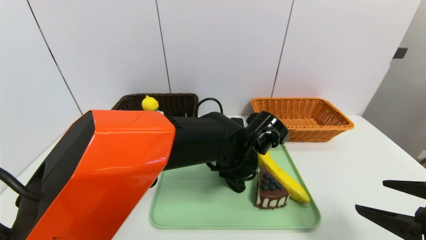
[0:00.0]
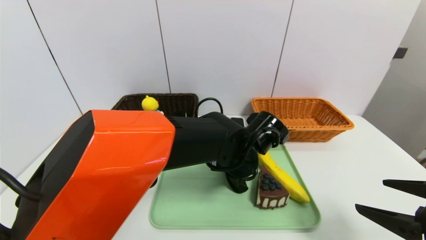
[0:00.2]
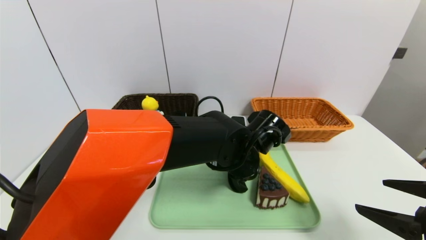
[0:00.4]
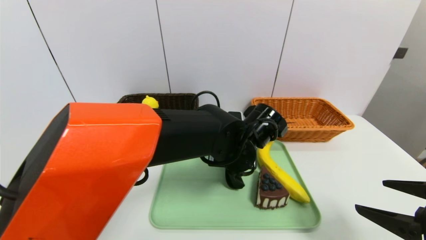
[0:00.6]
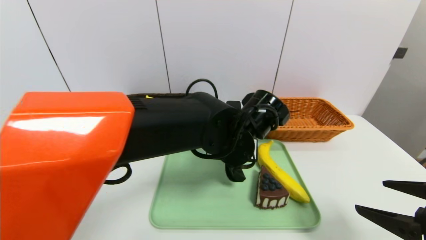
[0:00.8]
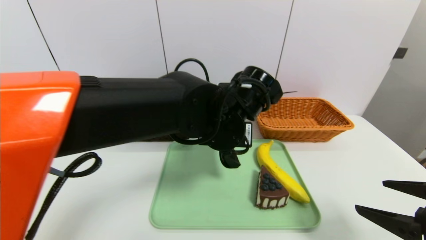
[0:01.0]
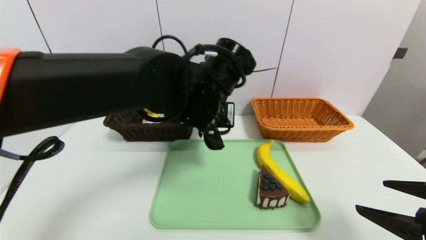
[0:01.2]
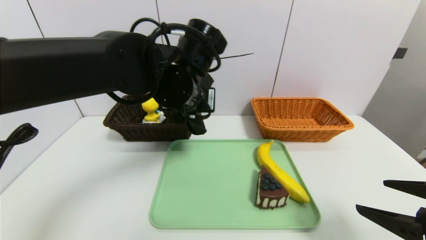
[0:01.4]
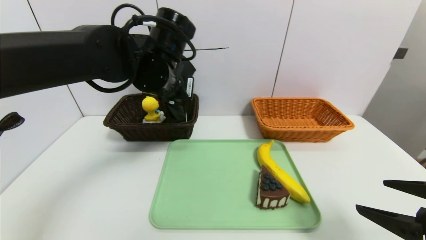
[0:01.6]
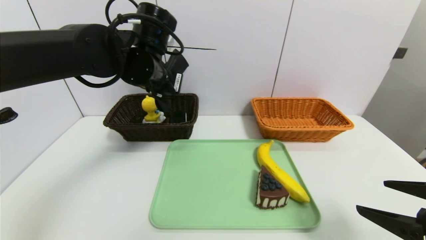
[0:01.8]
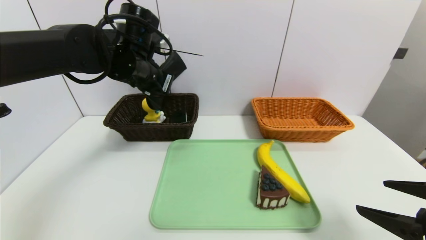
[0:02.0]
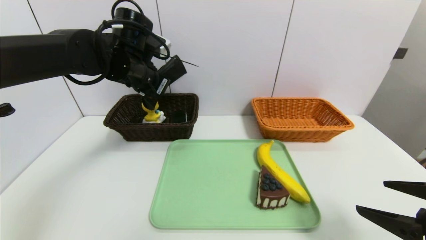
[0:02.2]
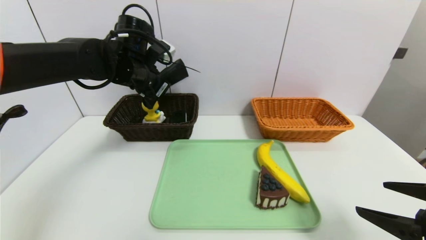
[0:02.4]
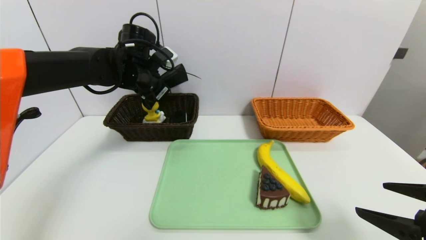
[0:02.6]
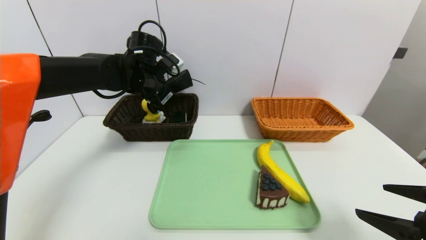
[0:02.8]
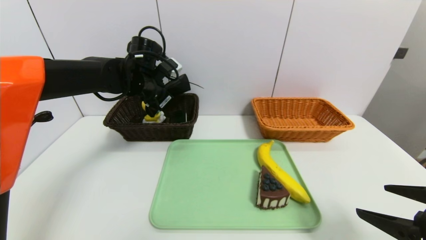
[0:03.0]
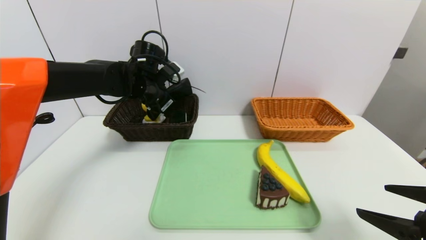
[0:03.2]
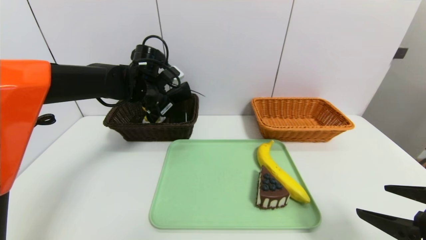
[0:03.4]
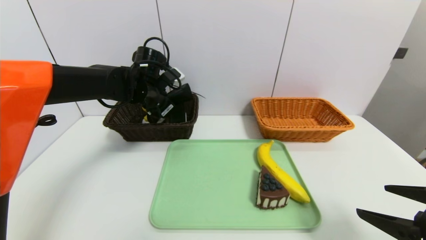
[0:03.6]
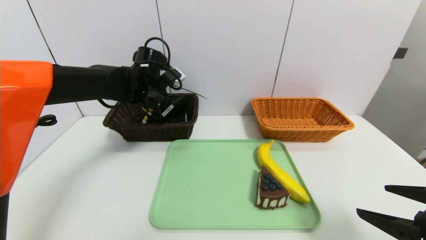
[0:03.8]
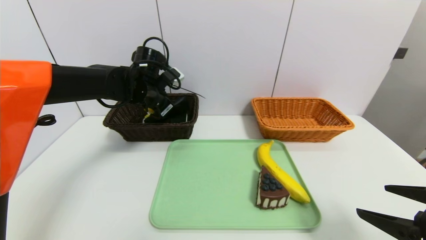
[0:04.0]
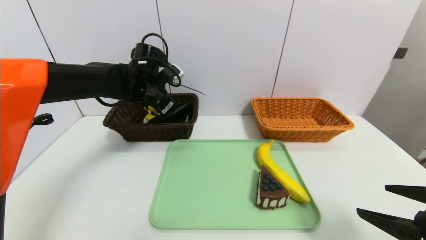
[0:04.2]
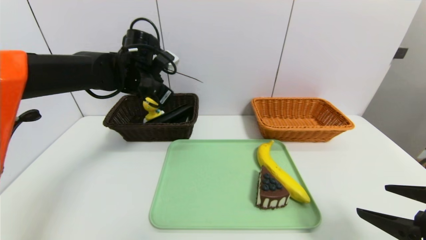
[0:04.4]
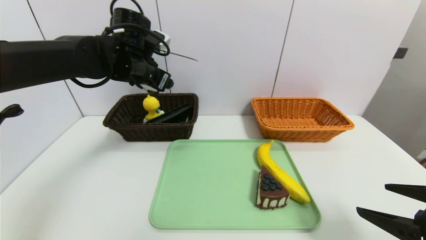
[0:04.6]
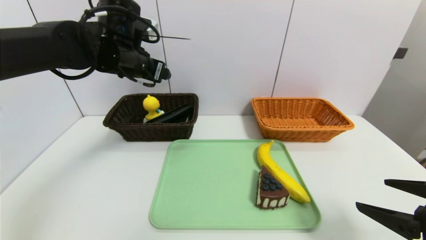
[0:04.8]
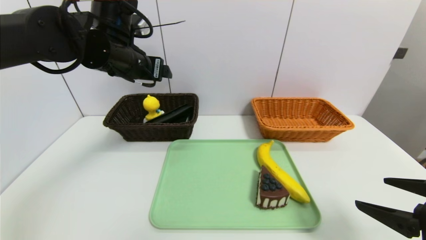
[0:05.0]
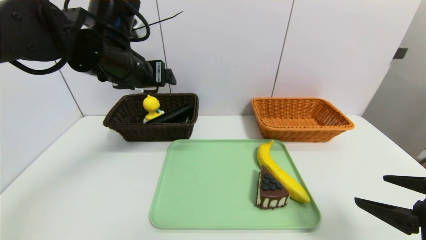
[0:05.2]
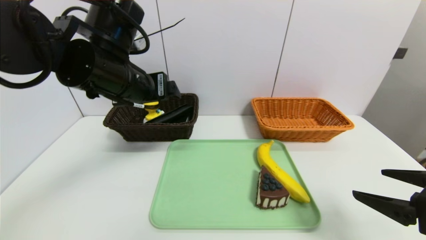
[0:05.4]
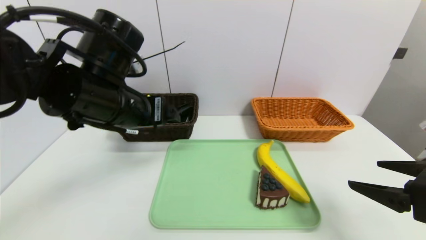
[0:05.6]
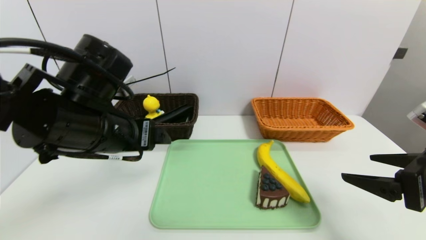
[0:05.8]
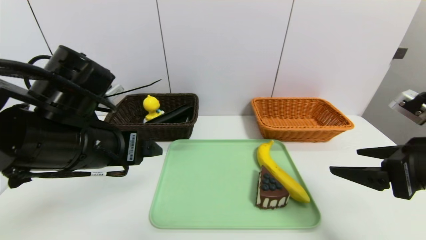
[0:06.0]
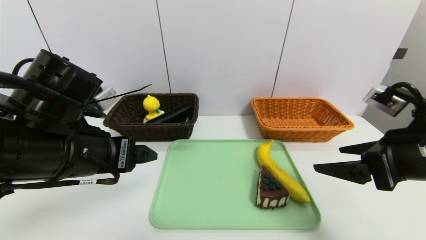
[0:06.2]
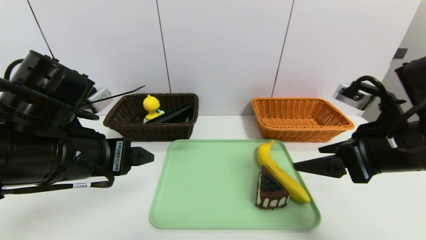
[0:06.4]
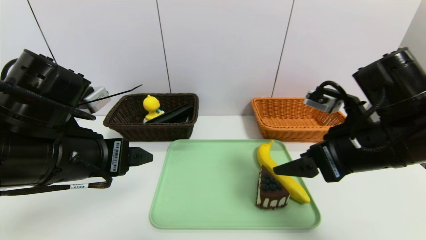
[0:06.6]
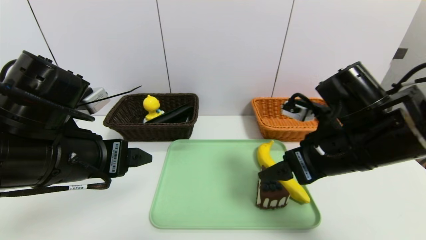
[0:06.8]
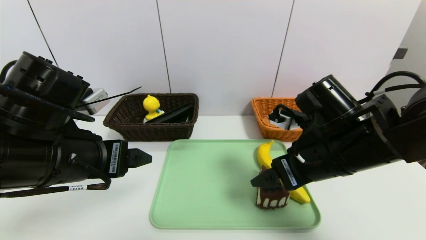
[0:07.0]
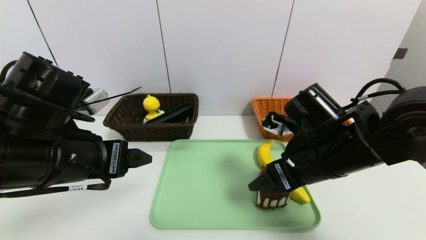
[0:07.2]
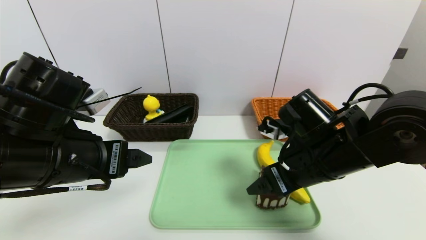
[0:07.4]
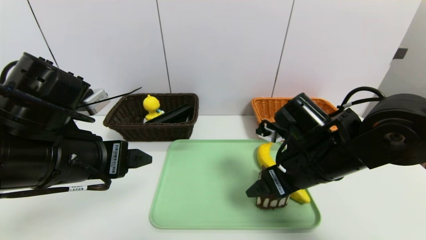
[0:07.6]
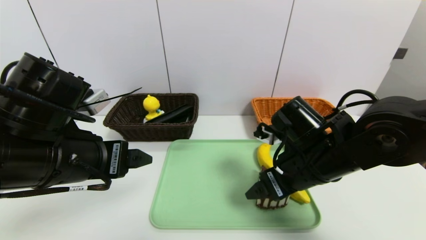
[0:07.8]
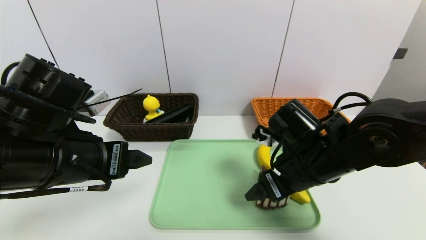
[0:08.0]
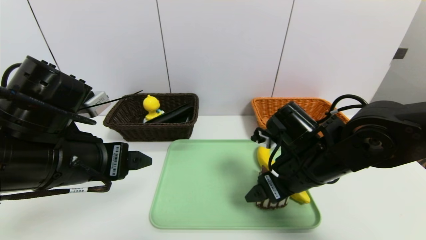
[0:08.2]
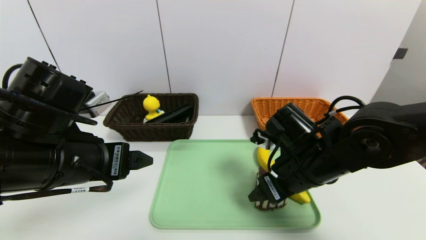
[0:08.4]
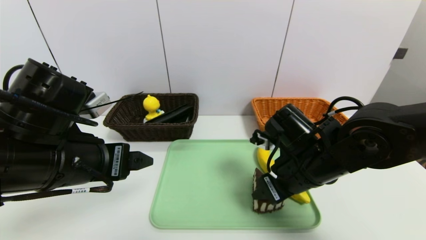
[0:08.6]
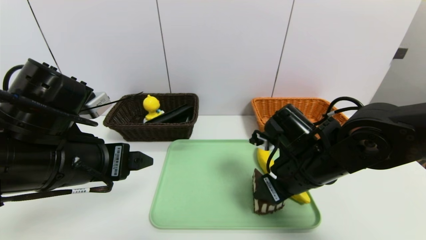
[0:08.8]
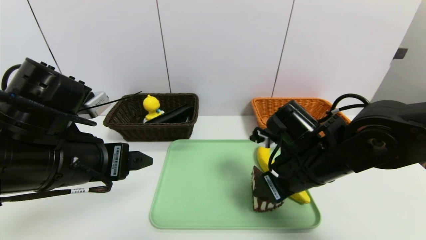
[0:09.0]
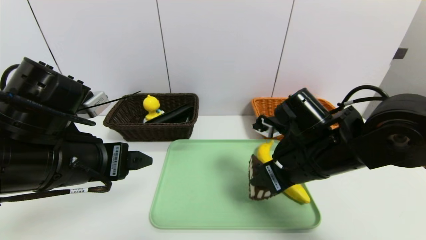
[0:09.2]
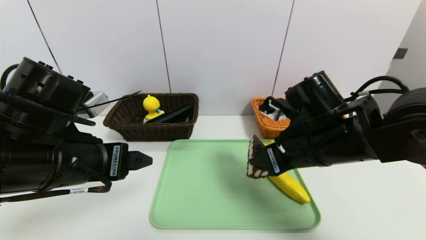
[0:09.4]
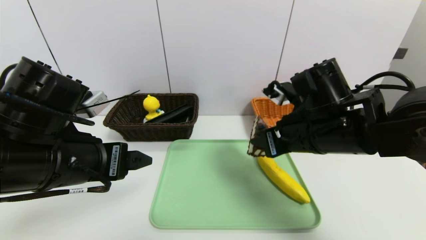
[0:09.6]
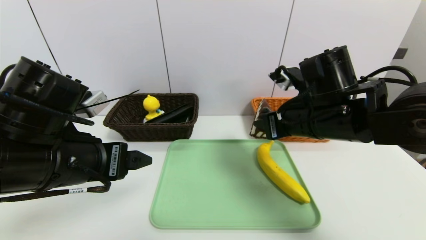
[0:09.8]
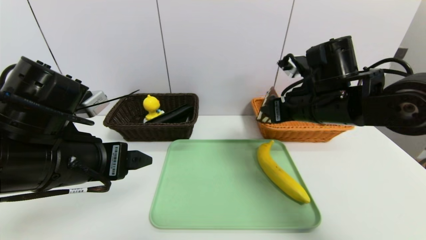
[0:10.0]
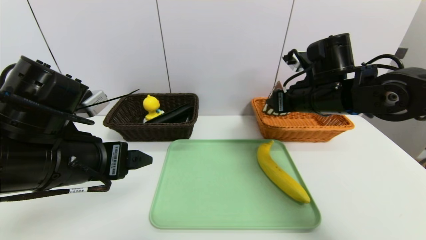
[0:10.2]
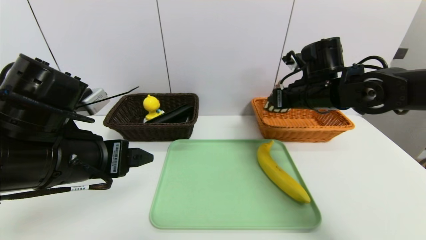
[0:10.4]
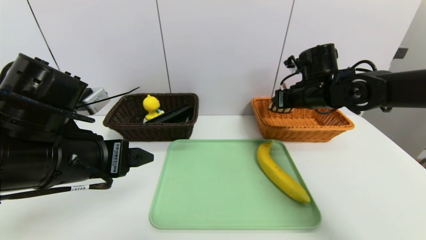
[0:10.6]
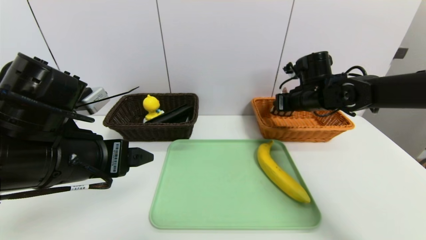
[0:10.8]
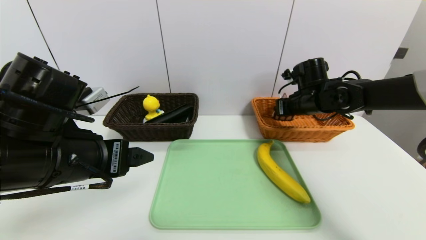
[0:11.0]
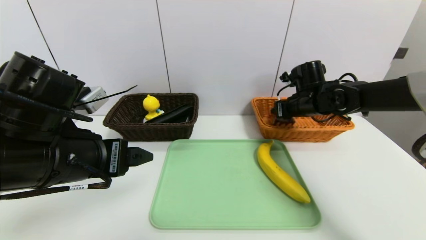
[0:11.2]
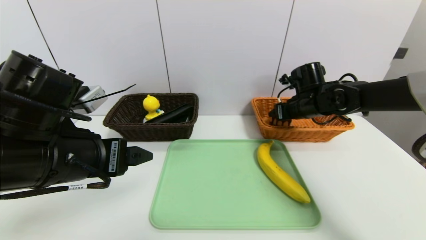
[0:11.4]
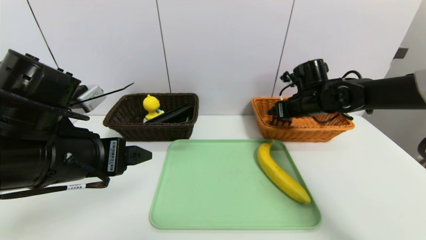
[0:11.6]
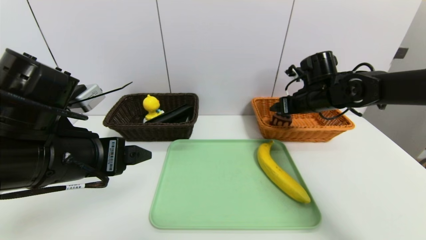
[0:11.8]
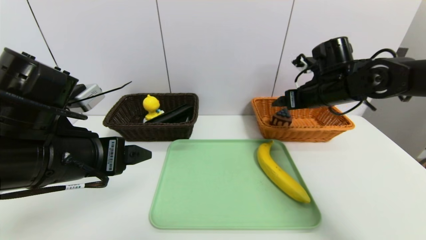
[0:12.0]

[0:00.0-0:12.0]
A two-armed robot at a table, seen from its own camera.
Task of the whole recording: place the food in the right basket with the right gripper, and place the non food items in the left basket with the left gripper.
Step, 0:00.0 to 0:04.2: Grasp the glasses case and put it in the left basket.
Step, 0:04.4 to 0:11.6: Grasp the triangle cake and put it in the right basket.
0:00.0 to 0:01.6: The left gripper travels to the left and upward by roughly 20 cm, and closes up.
0:01.6 to 0:03.0: The left gripper shifts approximately 10 cm forward and to the left.
0:03.0 to 0:04.4: The left gripper opens.
0:04.4 to 0:06.0: The left gripper goes roughly 20 cm backward; the right gripper is displaced forward by approximately 5 cm.
0:06.0 to 0:07.6: The right gripper heads to the left and forward, covering roughly 15 cm.
0:07.6 to 0:09.0: The right gripper closes its fingers.
0:09.0 to 0:10.4: The right gripper goes roughly 15 cm forward, upward and to the right.
0:10.4 to 0:12.0: The right gripper opens its fingers.

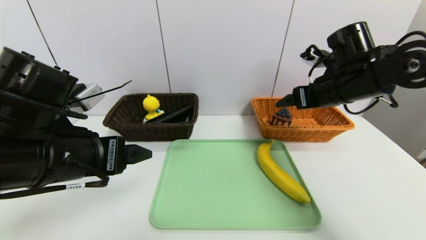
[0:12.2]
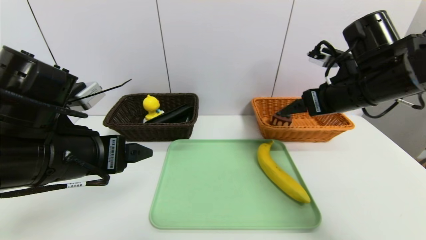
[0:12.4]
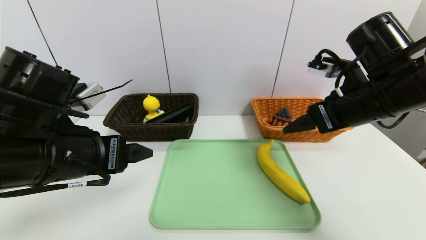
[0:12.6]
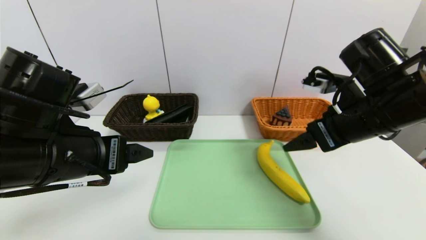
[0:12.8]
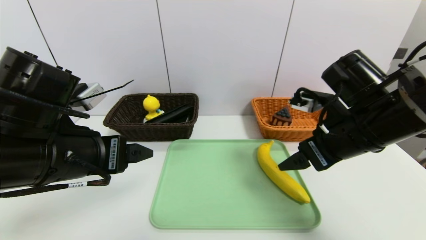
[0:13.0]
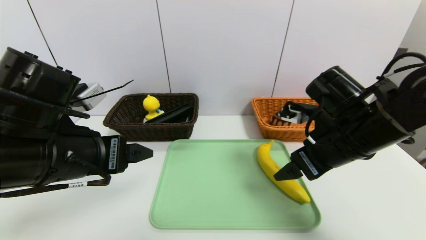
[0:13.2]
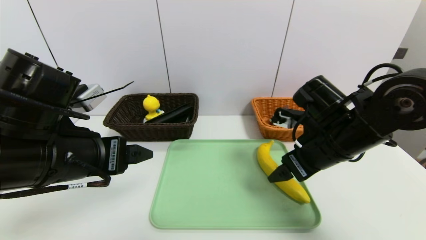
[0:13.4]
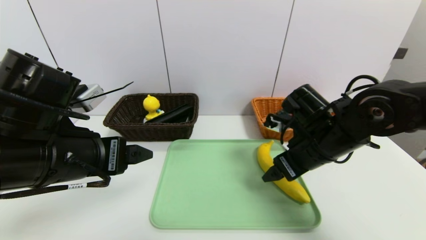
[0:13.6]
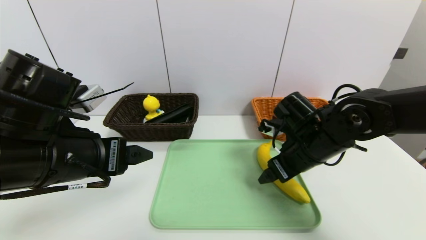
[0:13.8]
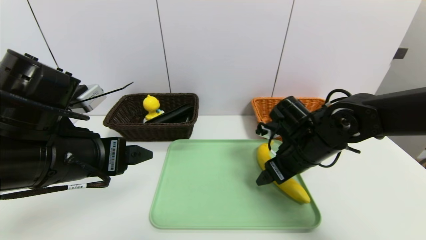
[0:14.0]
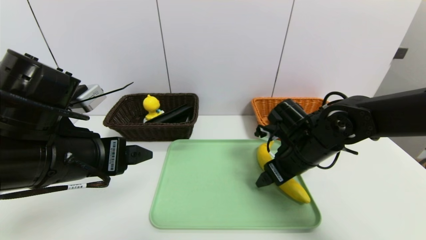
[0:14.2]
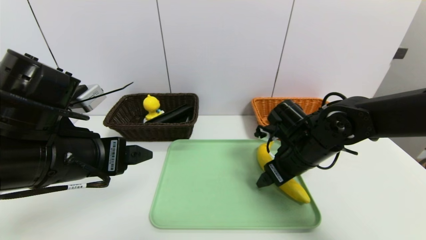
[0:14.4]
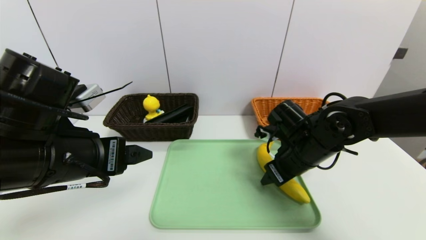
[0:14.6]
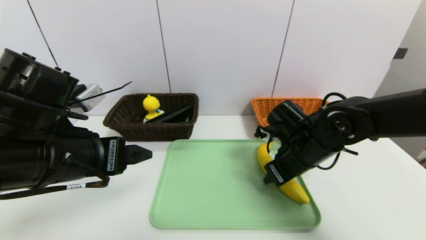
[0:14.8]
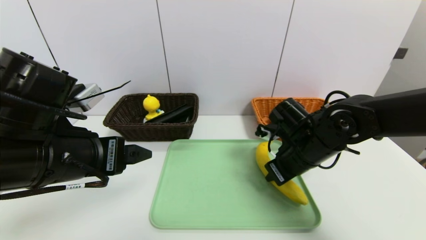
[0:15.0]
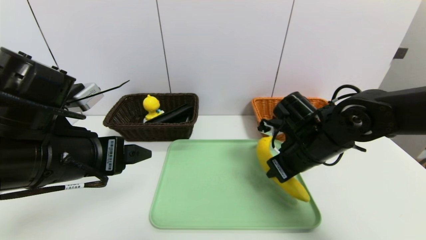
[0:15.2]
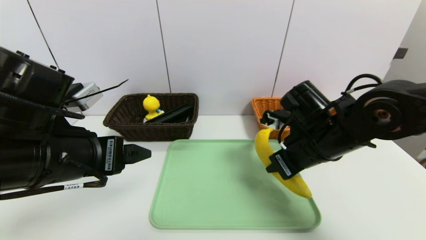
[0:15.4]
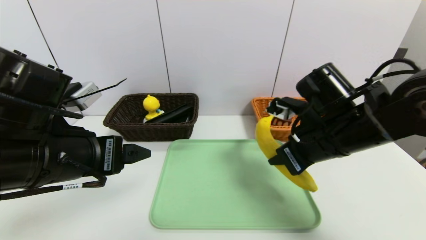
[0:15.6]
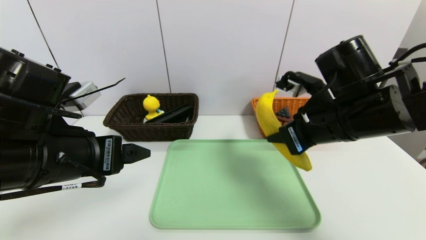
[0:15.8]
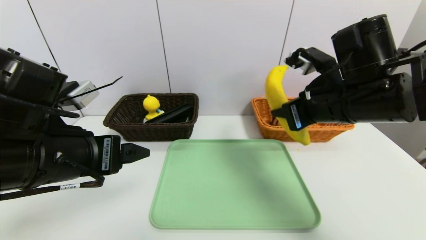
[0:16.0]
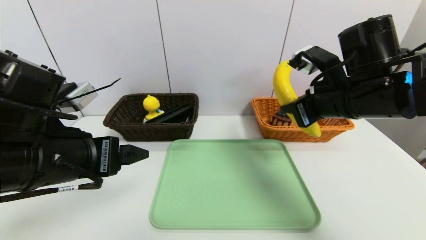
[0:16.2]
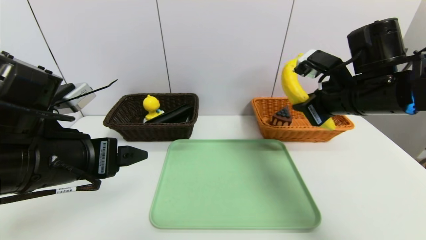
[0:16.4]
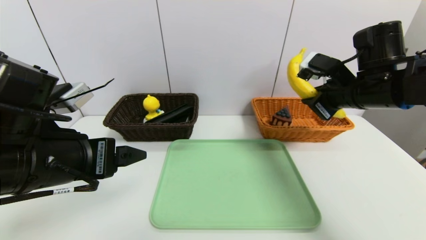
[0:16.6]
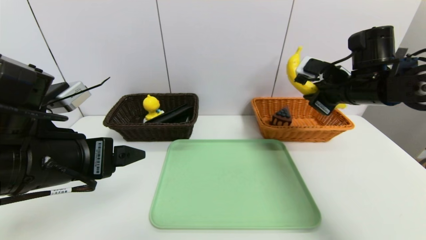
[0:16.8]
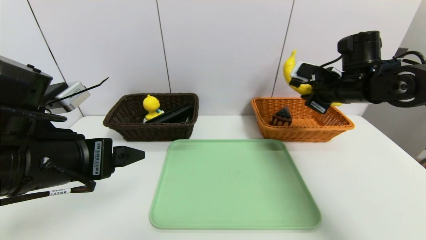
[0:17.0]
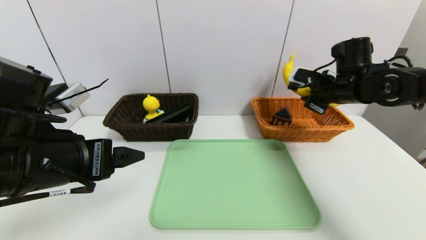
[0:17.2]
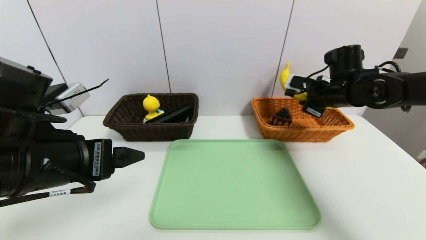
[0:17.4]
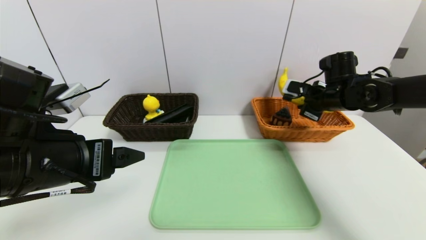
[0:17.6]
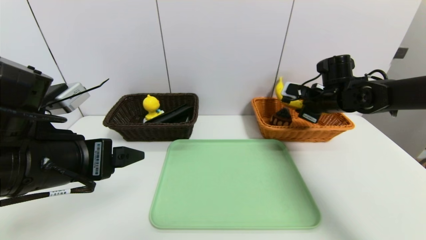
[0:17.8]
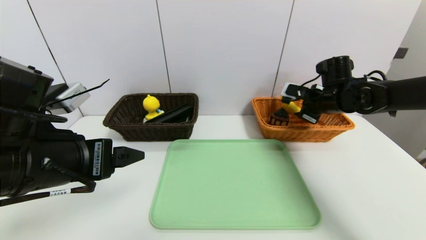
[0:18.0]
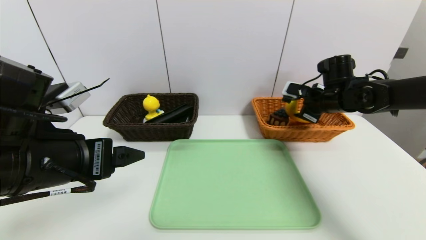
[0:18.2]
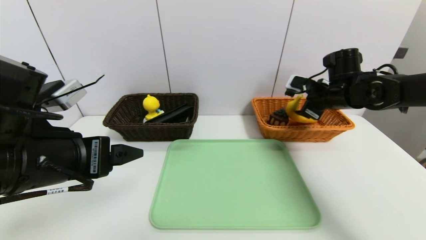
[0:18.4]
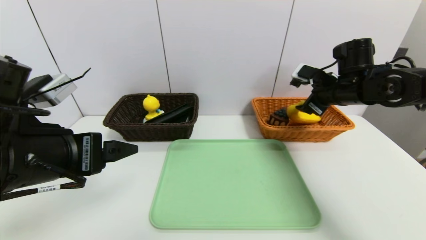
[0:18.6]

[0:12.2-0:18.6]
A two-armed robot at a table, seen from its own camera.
Task of the whole recording: place the food in the right basket with the right gripper, and place the non food items in the left basket with the left gripper.
Step, 0:12.2 to 0:18.6: Grasp the banana and put it in the right basket.
0:12.2 to 0:13.8: The right gripper is displaced downward and to the left by some 10 cm.
0:13.8 to 0:15.4: The right gripper closes.
0:15.4 to 0:17.0: The right gripper is displaced forward, to the right and upward by some 15 cm.
0:17.0 to 0:18.6: The right gripper opens its fingers.
